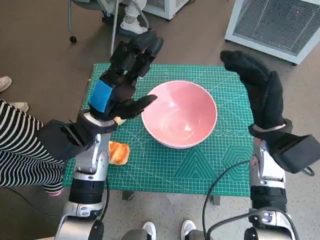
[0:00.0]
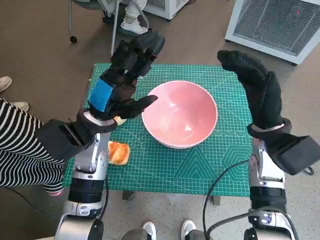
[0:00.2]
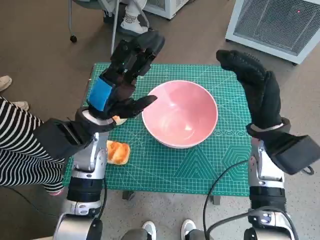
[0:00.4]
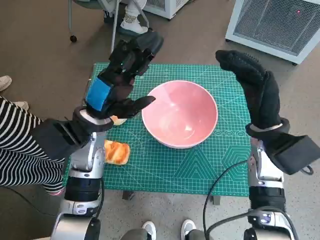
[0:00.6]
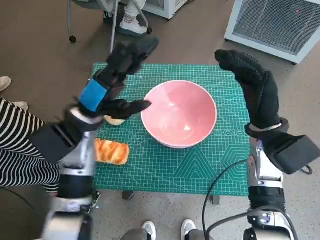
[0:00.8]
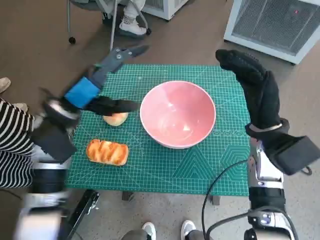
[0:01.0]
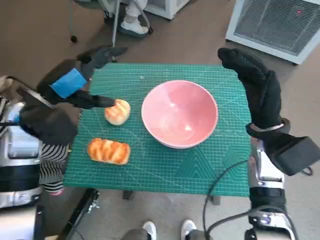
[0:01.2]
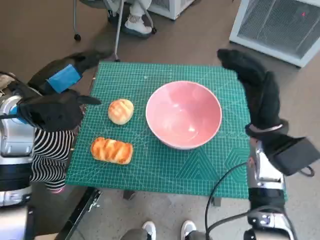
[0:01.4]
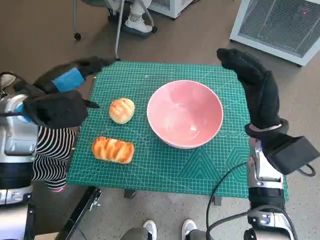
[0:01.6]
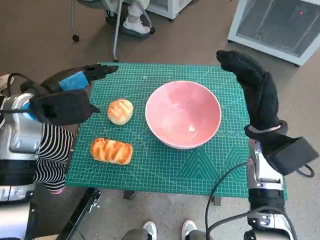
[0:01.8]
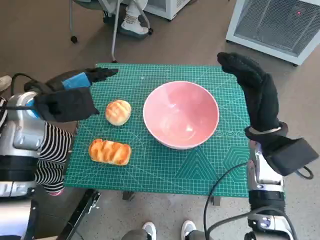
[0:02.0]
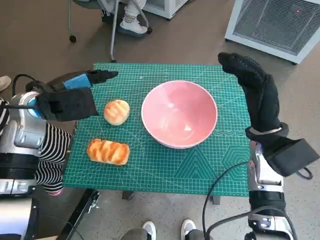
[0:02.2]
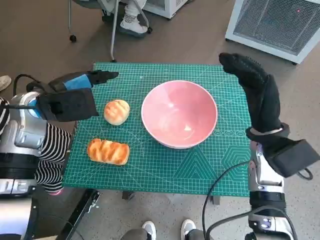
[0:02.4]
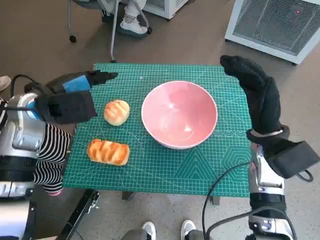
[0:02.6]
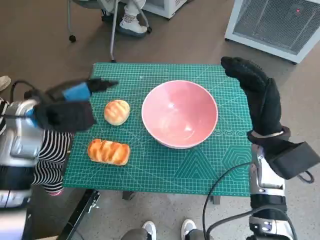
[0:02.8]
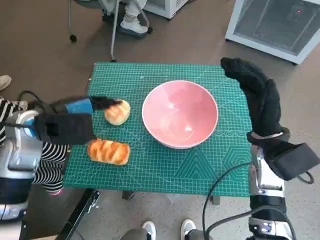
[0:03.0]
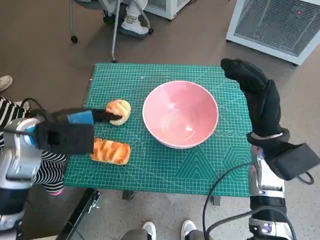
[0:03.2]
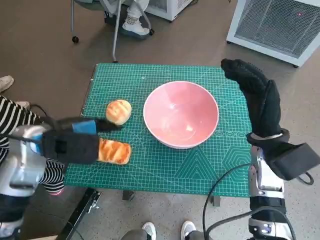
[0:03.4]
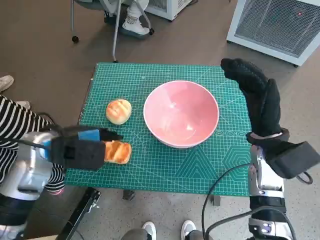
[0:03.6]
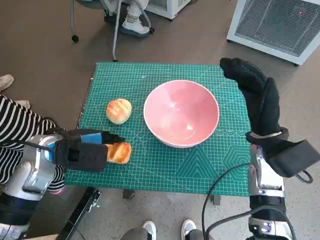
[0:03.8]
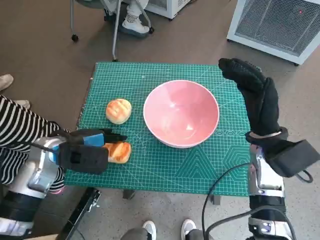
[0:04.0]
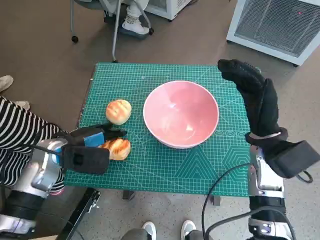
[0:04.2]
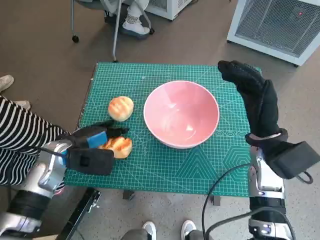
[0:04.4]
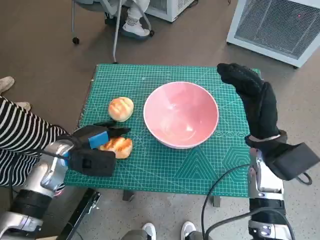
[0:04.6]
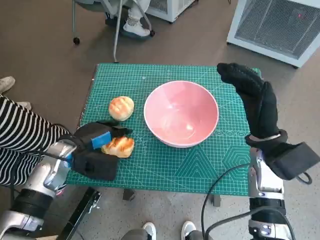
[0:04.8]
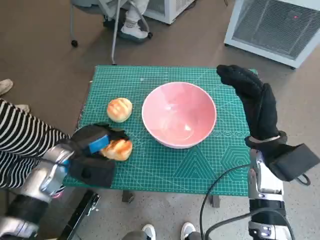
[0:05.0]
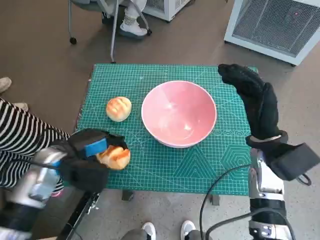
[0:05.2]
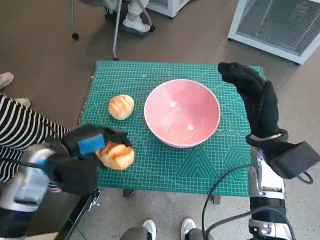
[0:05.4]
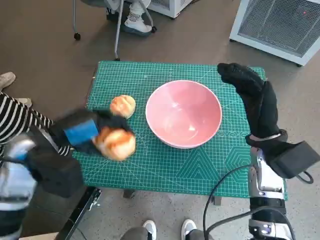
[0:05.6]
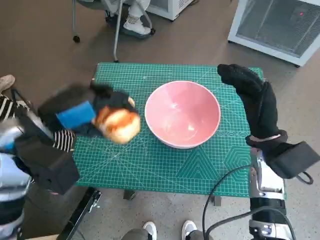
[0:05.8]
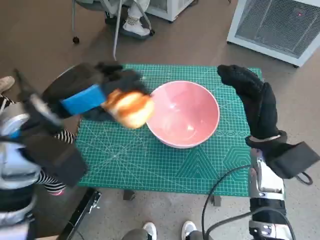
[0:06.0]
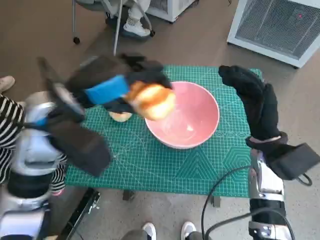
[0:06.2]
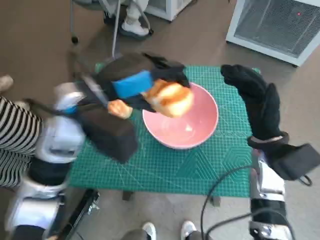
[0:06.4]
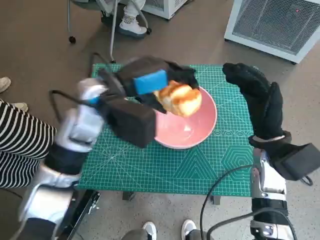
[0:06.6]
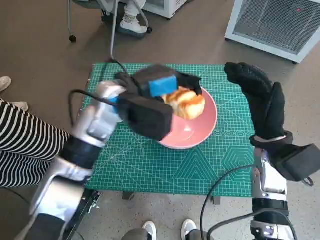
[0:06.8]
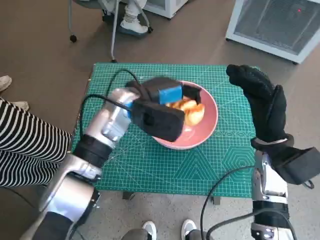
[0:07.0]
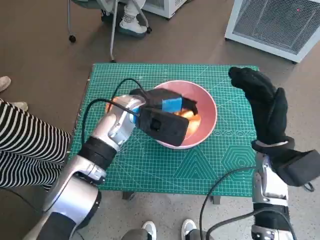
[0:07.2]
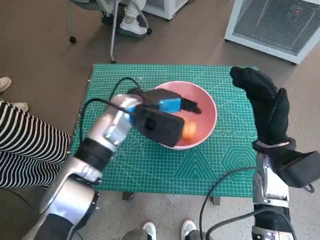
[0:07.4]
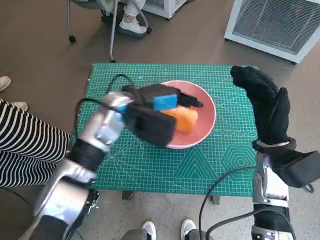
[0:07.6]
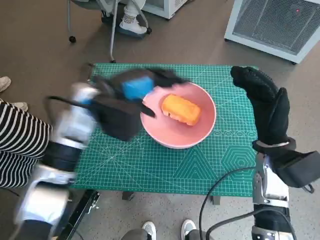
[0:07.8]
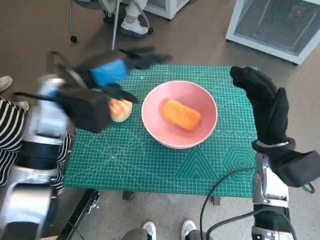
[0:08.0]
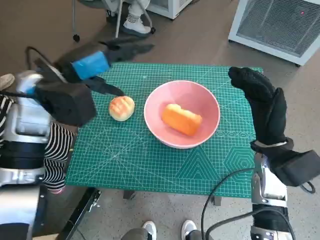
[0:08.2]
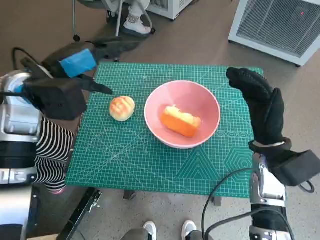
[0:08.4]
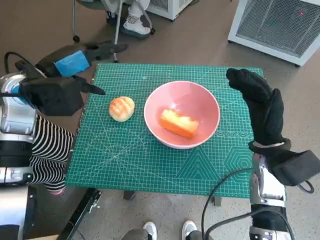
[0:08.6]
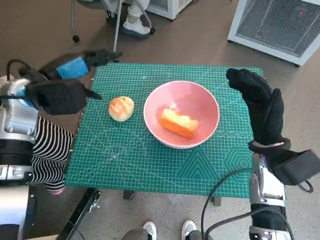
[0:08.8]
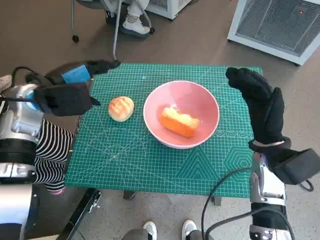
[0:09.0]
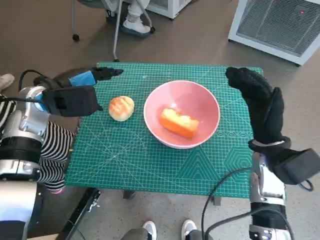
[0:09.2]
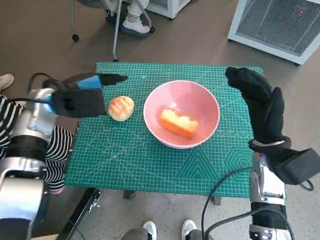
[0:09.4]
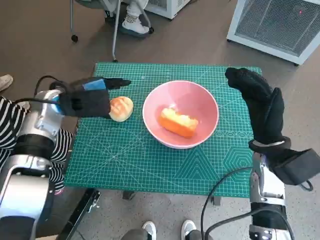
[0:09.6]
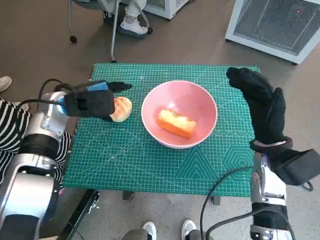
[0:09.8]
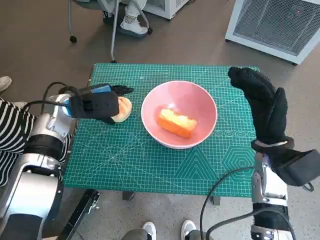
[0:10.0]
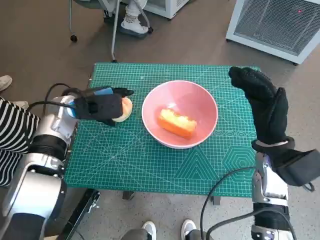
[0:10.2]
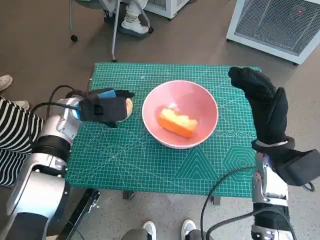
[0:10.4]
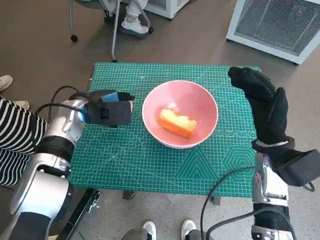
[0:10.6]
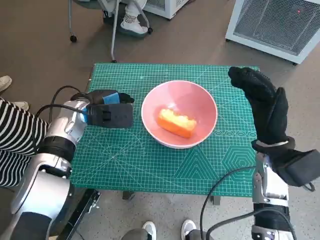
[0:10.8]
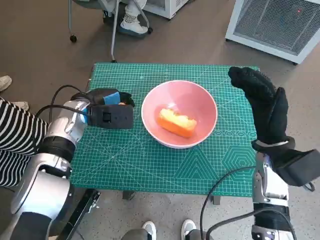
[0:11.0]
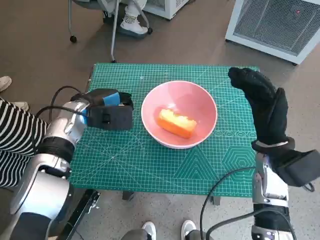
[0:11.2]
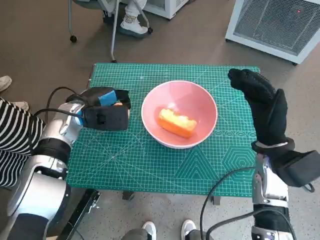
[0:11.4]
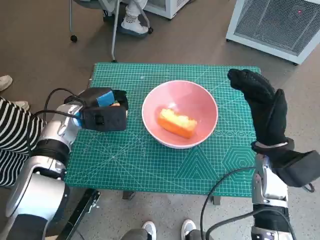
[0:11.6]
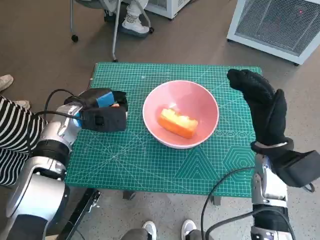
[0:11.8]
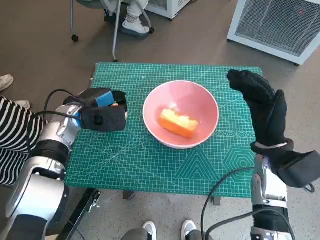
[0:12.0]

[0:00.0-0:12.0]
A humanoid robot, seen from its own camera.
Task of the whole recording: Push the bowl into the center of the table and put the bread into the bowl.
Step, 0.0 to 5.0 s: Grasp the long bread with left hand.
Step, 5.2 to 7.8 s: Place the long bread in pink bowl with left hand.
Step, 8.0 to 11.0 s: Grasp the round bread with left hand.
0.0 to 1.6 s: The left hand heads to the left and upward, covering some 10 cm.
3.0 to 4.4 s: The left hand heads downward, covering some 10 cm.
4.4 to 6.0 s: The left hand moves upward, approximately 15 cm.
6.0 to 7.6 s: The left hand moves to the right, forward and downward, approximately 15 cm.
7.6 to 9.0 s: The left hand moves to the left, approximately 15 cm.
9.0 to 10.4 s: The left hand goes roughly 5 cm downward.
10.4 to 12.0 s: The hands make only small movements.

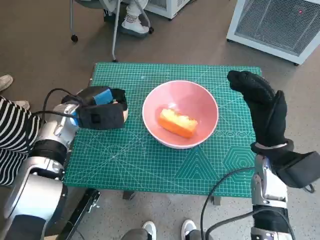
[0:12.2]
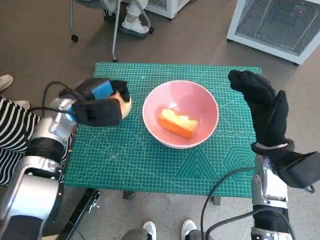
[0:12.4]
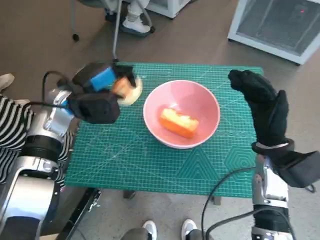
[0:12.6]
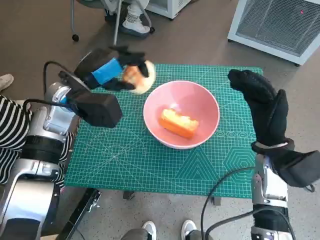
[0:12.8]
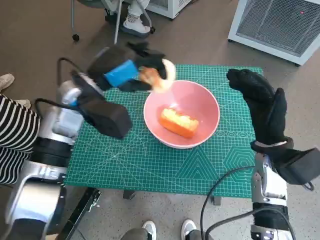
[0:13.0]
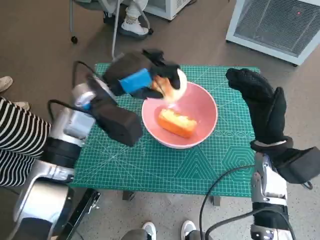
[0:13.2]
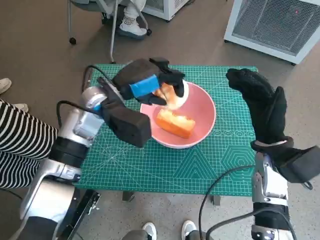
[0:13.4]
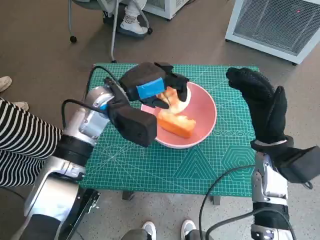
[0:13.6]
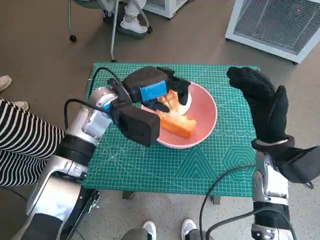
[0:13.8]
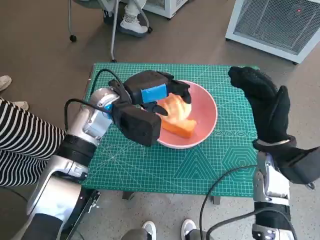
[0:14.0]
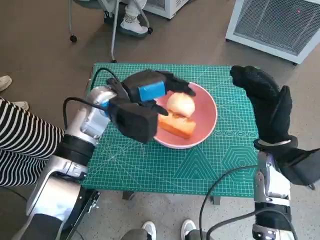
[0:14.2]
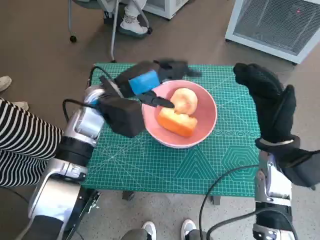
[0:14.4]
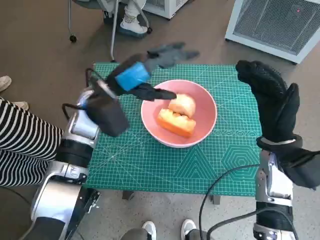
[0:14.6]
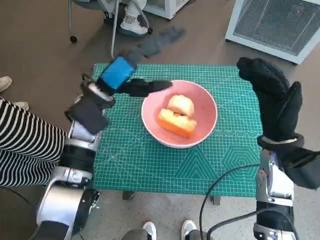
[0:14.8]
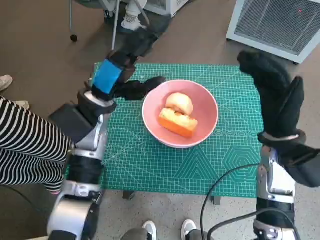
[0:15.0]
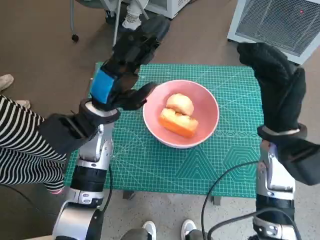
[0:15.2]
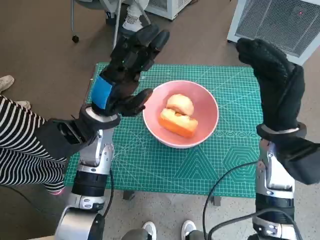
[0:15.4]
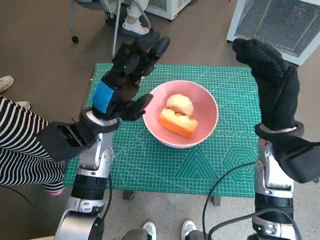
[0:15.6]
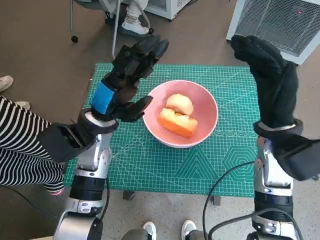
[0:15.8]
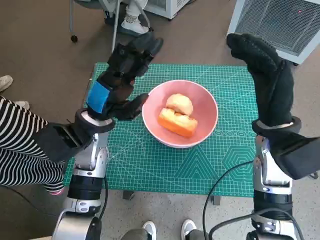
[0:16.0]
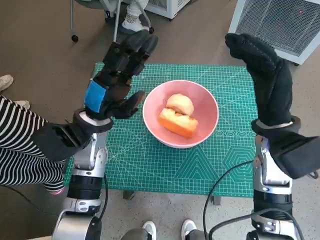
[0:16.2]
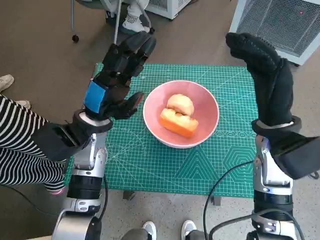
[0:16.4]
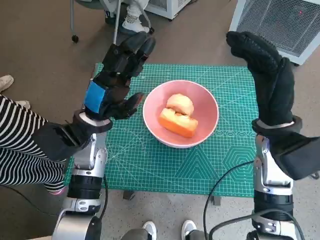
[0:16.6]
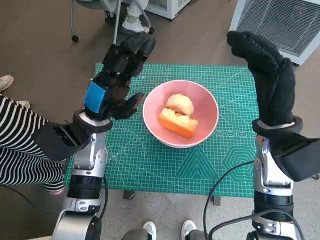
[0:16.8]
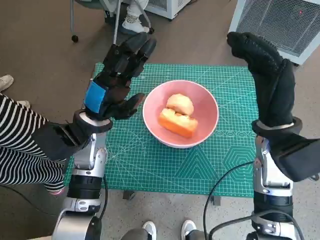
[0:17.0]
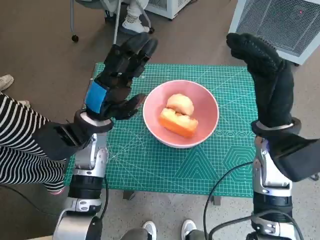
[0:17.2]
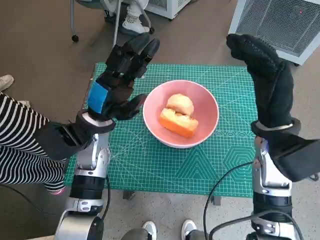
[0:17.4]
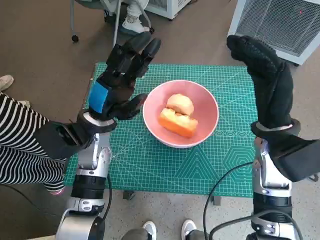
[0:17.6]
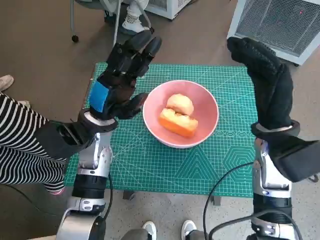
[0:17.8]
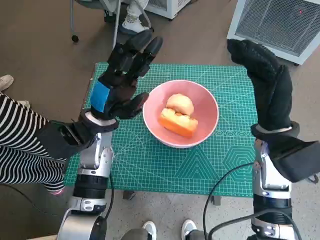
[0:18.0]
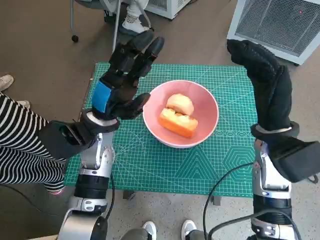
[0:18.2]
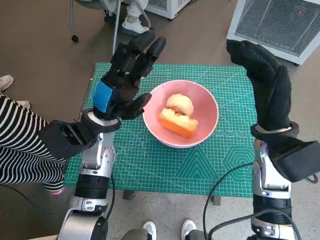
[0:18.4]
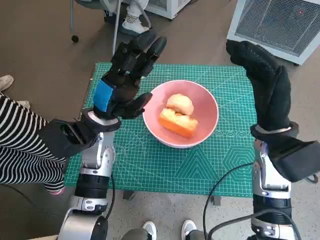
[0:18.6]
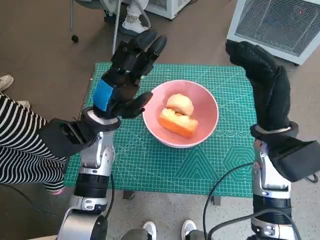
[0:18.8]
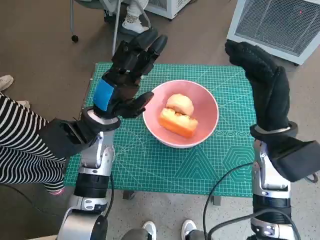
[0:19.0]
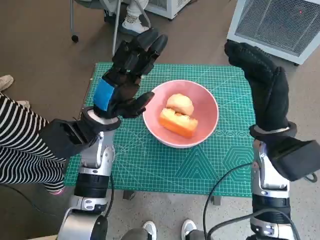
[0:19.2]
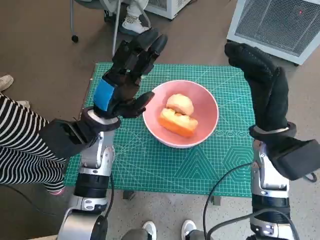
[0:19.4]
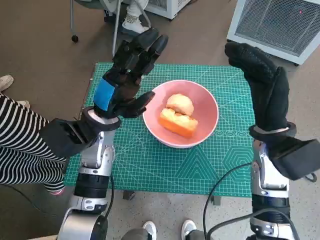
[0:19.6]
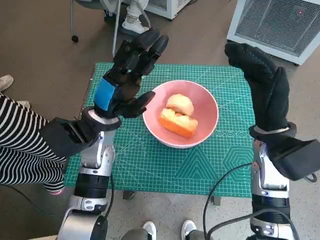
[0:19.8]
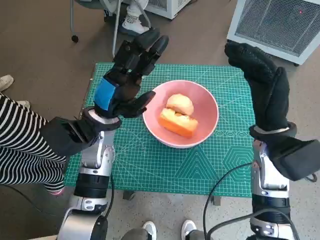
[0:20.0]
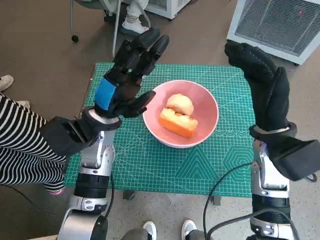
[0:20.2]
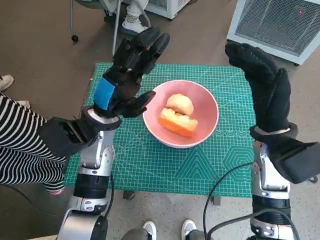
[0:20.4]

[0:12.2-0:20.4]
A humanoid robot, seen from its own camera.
Task of the whole recording: Push the bowl into the center of the table and put the bread into the bowl.
Step, 12.2 to 14.4 s: Place the round bread in pink bowl with left hand.
12.2 to 13.8 s: The left hand heads to the right and upward, covering roughly 10 cm.
15.4 to 18.8 s: The hands make only small movements.
18.8 to 20.4 s: Both hands stay put.

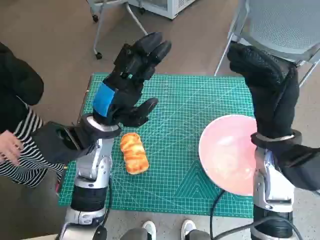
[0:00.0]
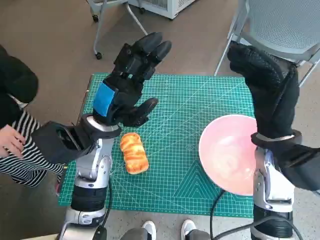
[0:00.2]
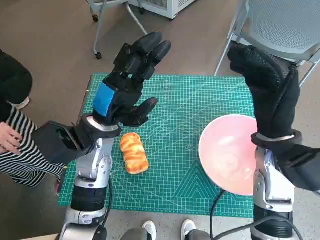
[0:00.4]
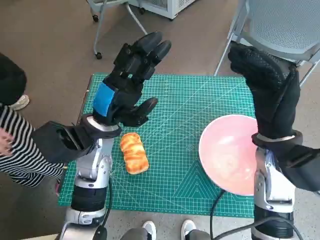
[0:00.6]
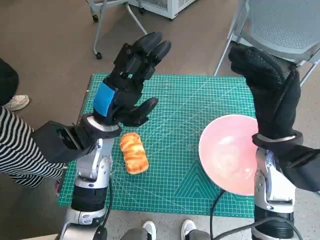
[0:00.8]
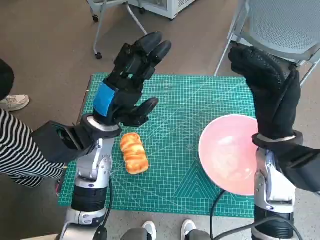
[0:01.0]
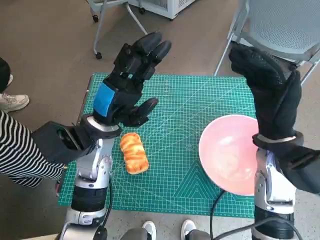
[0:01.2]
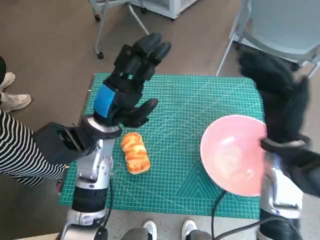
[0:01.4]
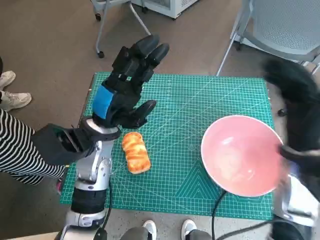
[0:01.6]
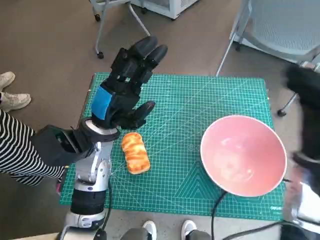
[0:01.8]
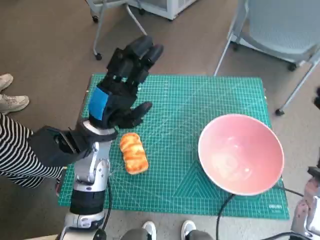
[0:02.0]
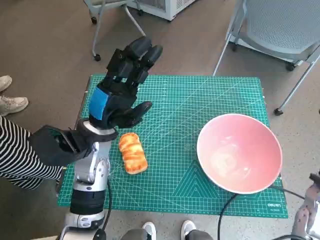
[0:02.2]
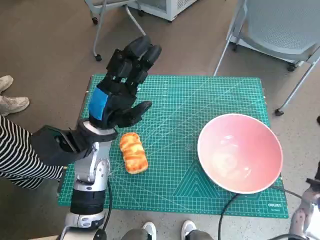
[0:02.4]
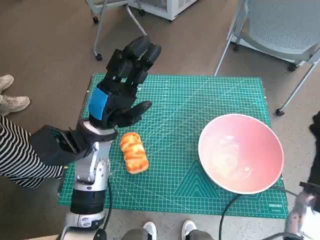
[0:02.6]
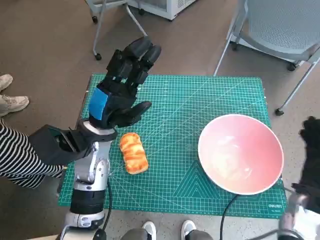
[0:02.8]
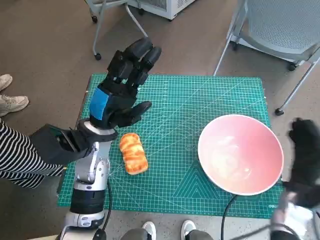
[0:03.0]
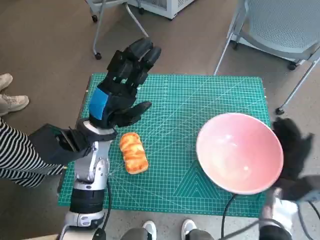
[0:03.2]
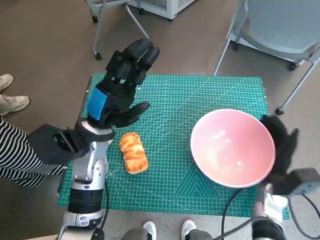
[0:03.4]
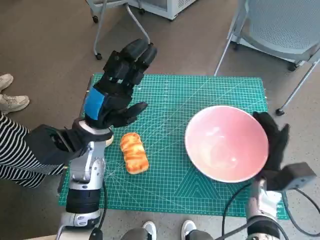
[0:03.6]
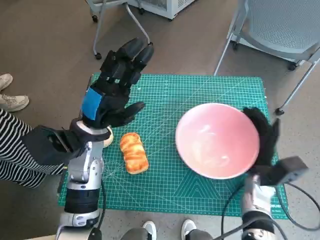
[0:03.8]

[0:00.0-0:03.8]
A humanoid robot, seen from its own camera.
Task of the whole recording: Push the bowl into the center of the table and put the bread into the bowl.
1.2 to 2.6 s: The right hand is displaced to the right and downward by approximately 15 cm.
2.6 to 3.8 s: The right hand travels to the left and downward by roughly 10 cm.
